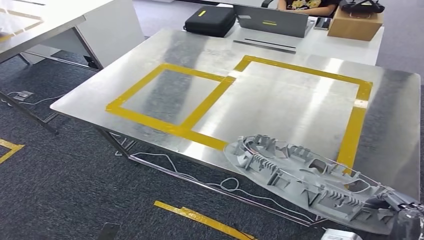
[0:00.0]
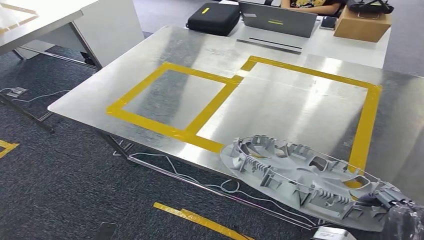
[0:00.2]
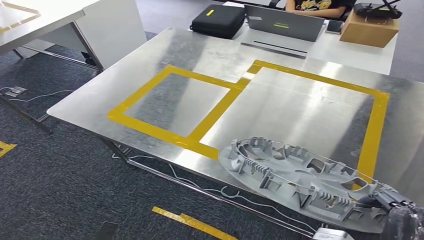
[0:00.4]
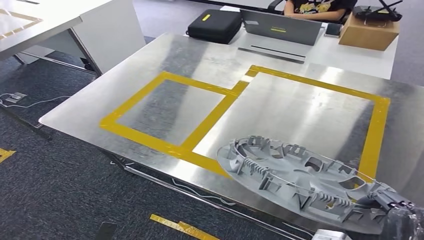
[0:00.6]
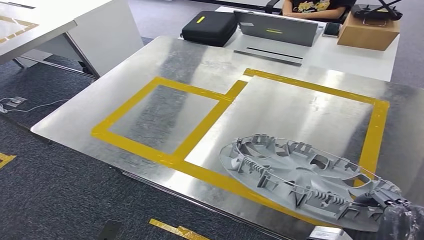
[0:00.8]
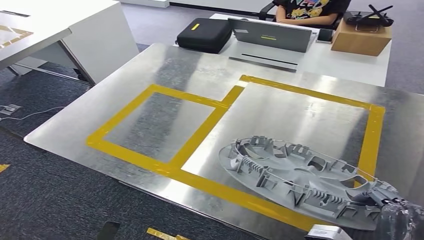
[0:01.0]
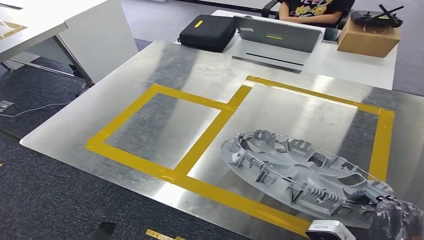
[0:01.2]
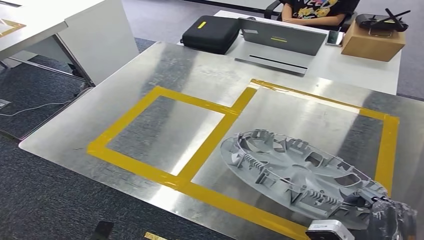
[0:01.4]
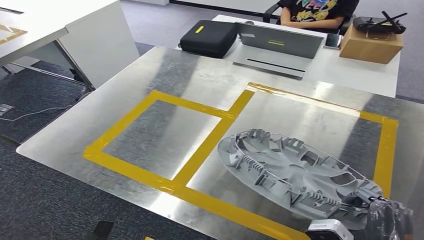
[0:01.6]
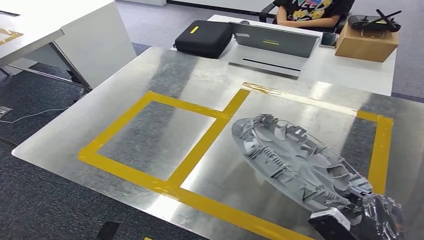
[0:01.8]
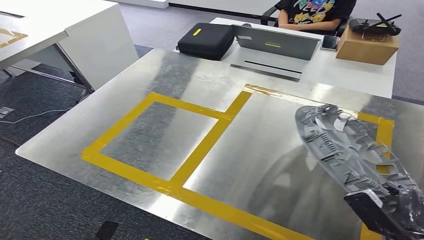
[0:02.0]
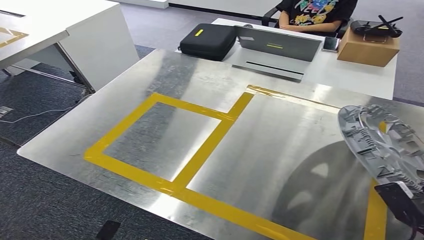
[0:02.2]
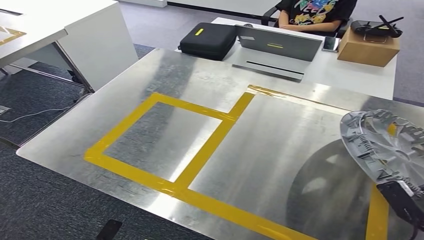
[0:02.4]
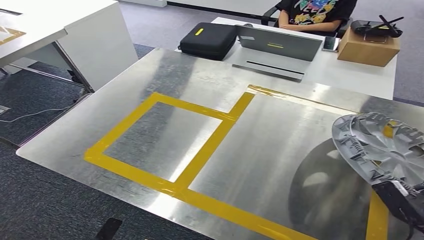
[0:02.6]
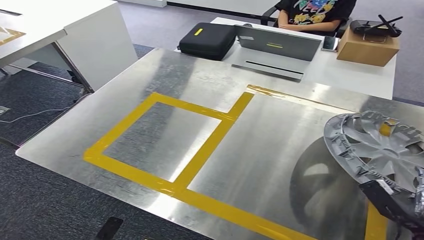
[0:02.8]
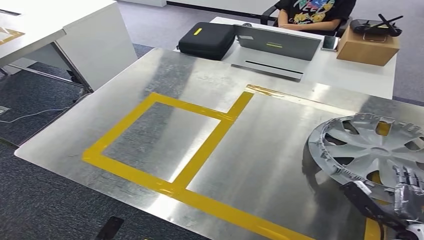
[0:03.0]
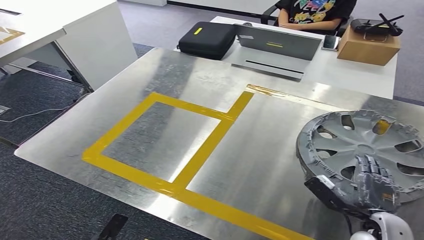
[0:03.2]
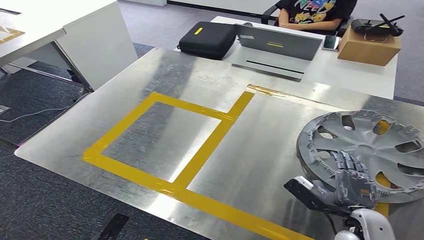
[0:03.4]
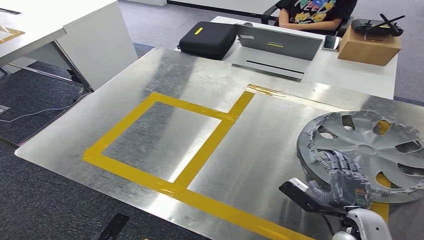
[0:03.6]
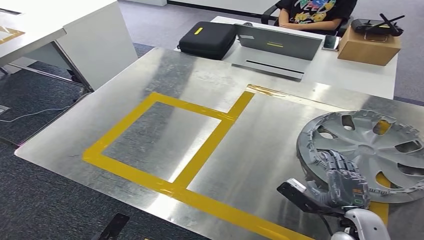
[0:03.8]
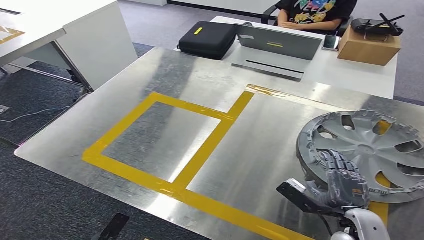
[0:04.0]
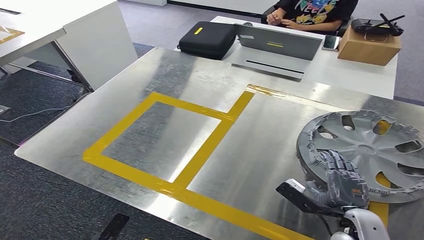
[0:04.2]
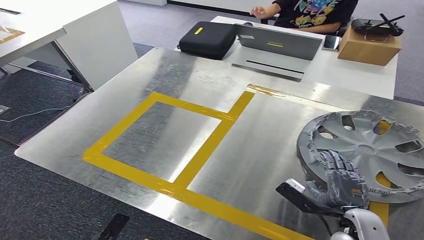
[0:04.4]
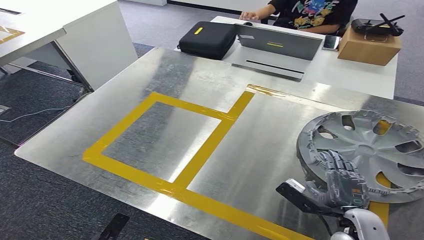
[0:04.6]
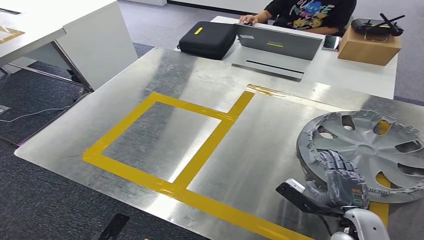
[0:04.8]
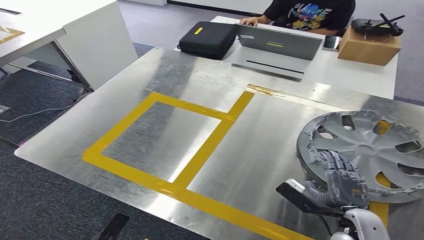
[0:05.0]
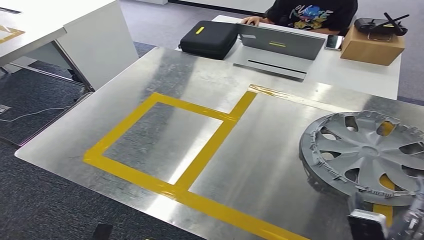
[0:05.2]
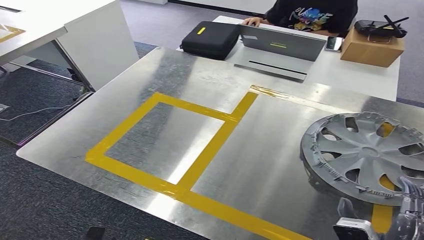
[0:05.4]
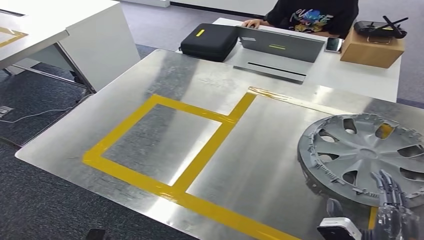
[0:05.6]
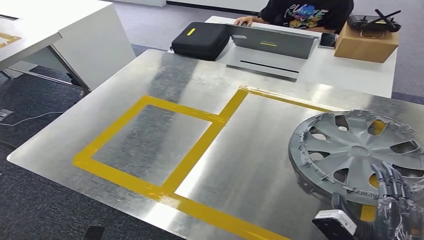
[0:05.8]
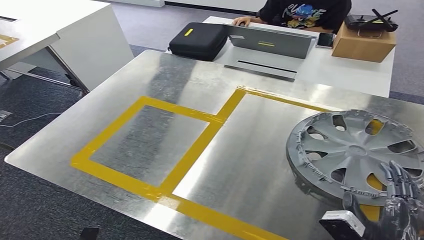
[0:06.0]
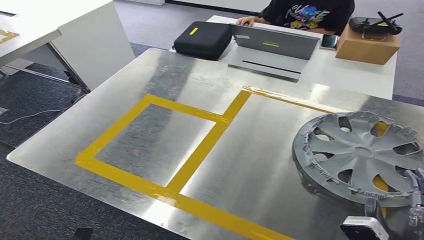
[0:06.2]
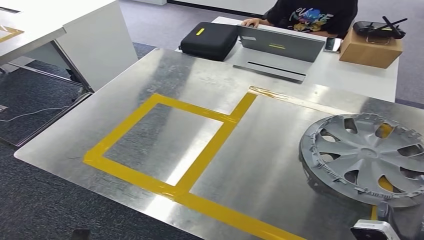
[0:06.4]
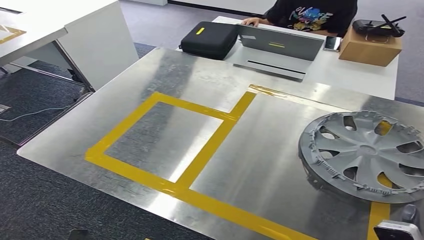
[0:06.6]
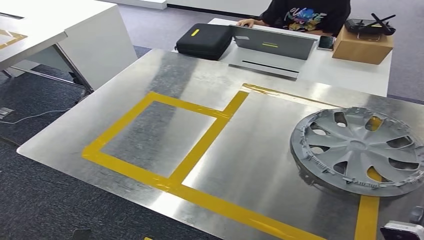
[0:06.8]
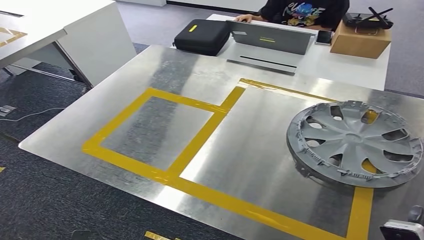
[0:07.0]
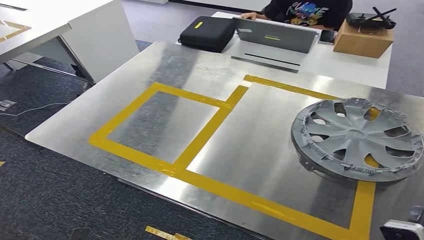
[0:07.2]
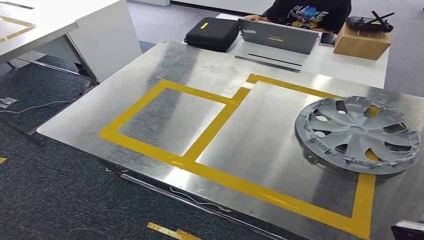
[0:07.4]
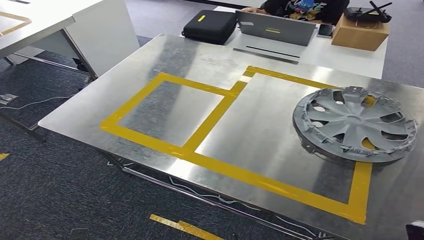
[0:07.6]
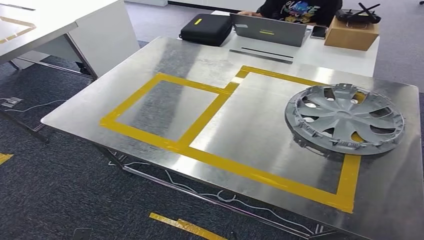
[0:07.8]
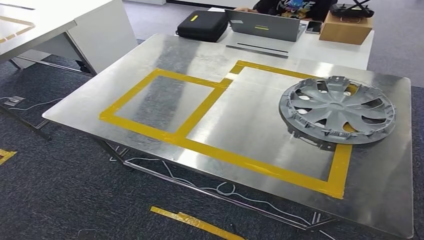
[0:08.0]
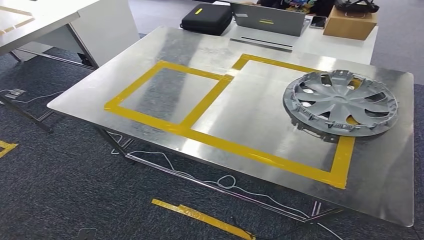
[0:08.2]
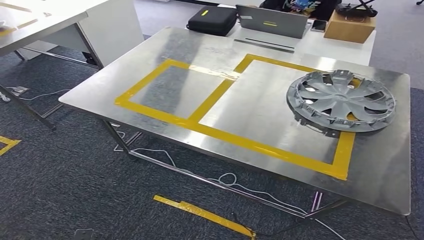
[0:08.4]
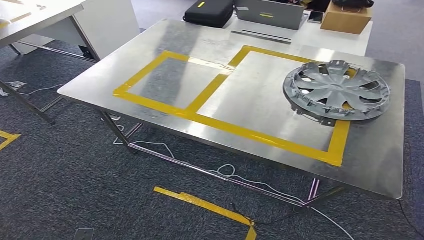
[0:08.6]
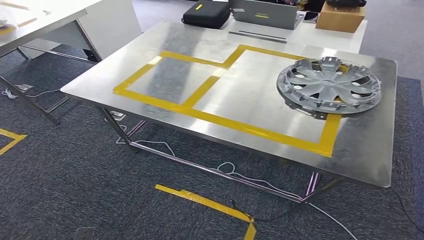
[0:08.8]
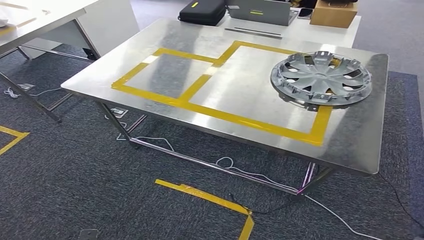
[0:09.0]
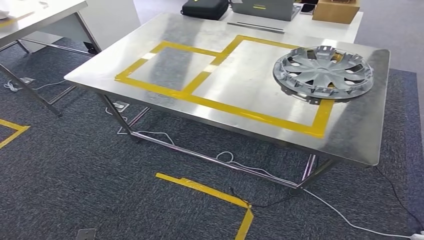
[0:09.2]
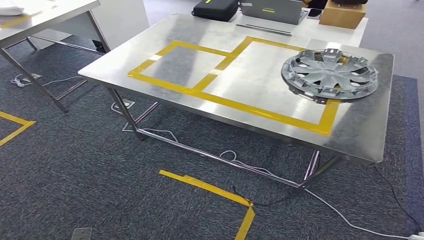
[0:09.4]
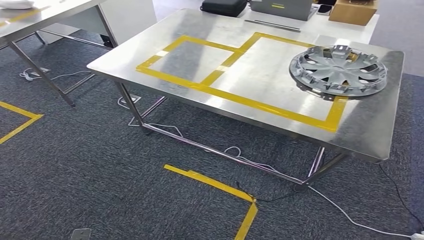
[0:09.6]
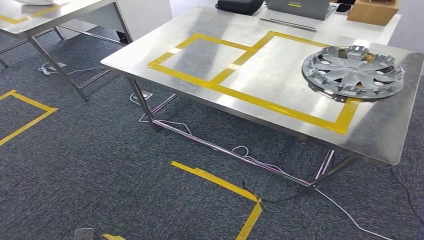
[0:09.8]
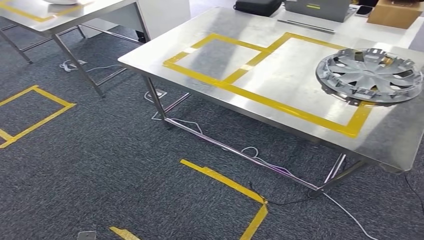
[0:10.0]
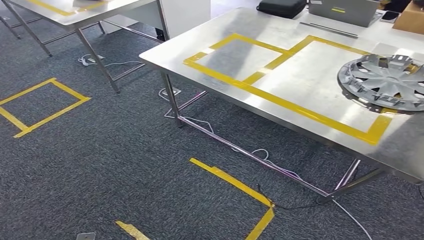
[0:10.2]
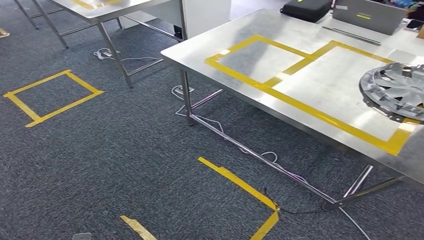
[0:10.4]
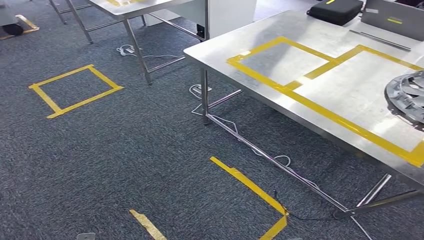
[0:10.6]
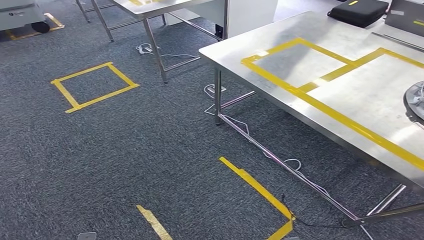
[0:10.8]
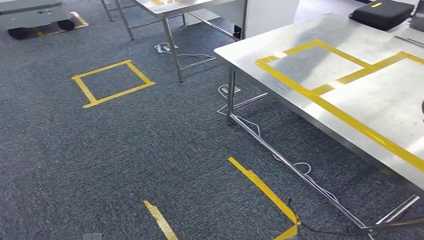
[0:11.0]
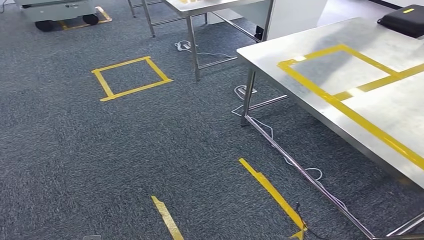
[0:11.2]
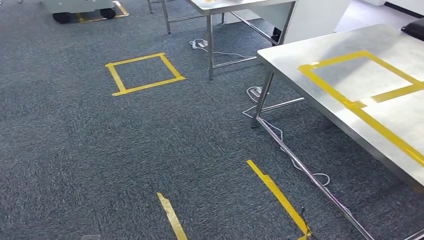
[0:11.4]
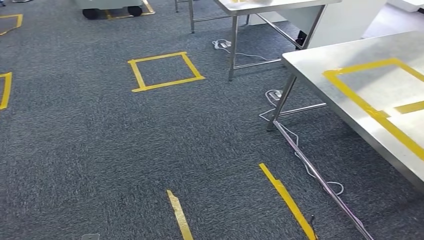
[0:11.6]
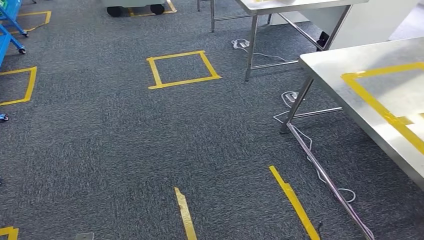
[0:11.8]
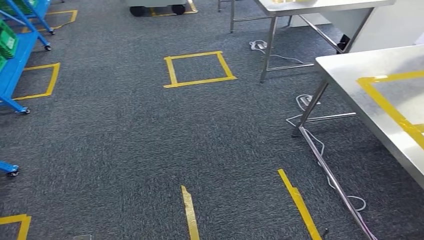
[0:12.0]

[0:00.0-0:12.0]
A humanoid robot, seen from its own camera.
Step, 0:00.0 to 0:05.6: Insert the small parts into the corresponding holes on the workbench.
0:03.0 to 0:04.4: The right hand heads to the left, covering approximately 10 cm.

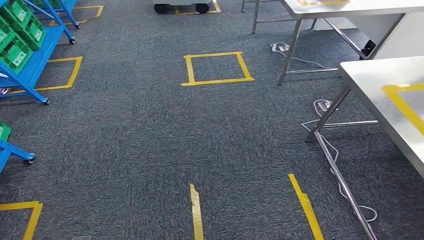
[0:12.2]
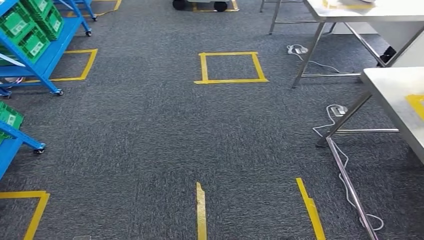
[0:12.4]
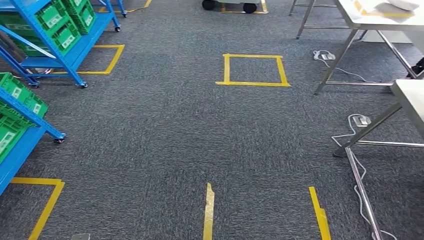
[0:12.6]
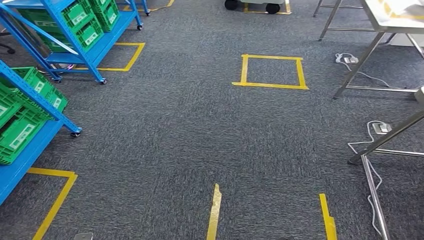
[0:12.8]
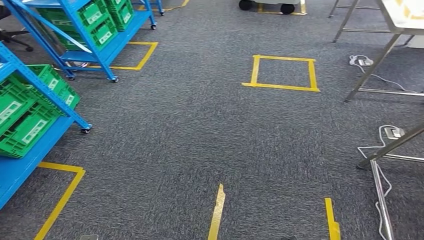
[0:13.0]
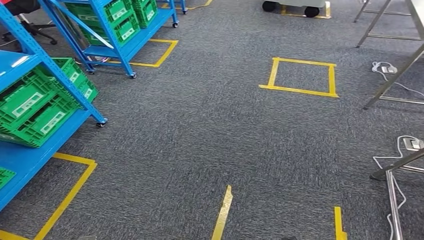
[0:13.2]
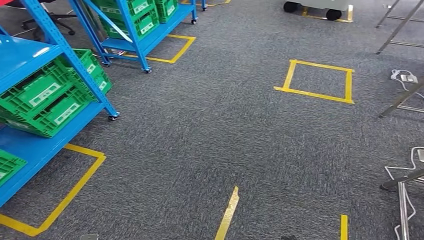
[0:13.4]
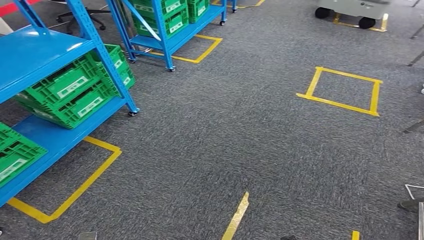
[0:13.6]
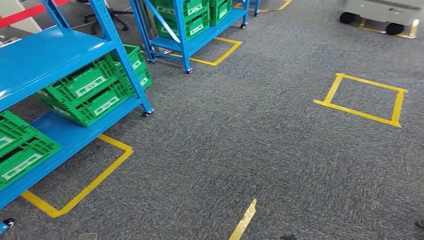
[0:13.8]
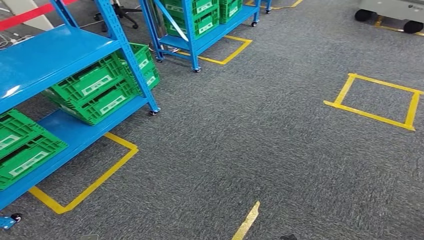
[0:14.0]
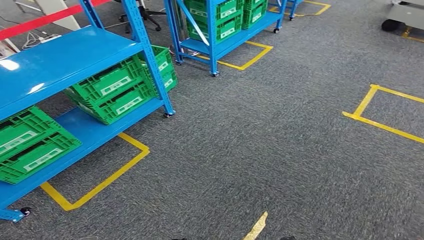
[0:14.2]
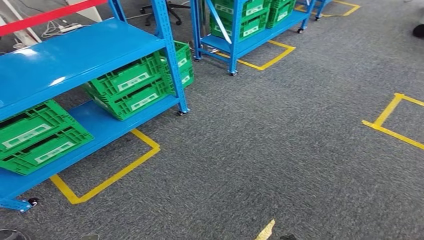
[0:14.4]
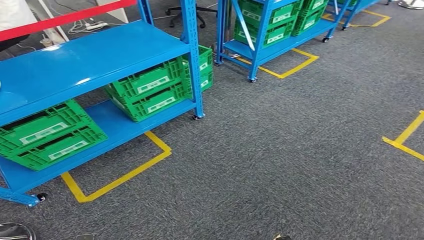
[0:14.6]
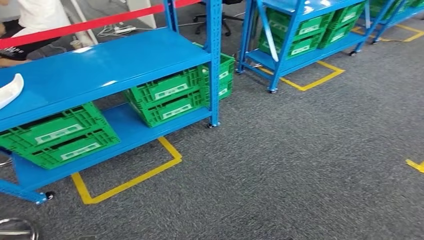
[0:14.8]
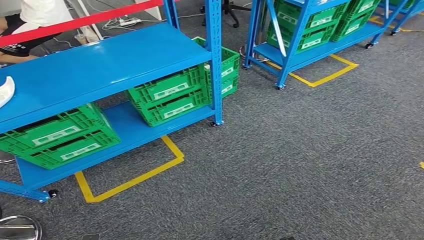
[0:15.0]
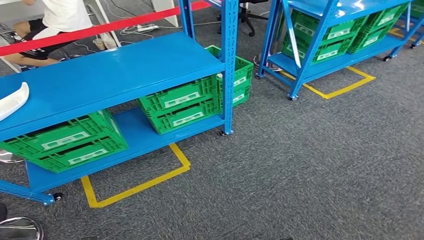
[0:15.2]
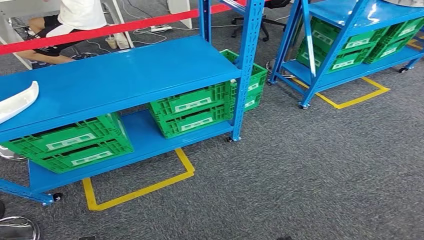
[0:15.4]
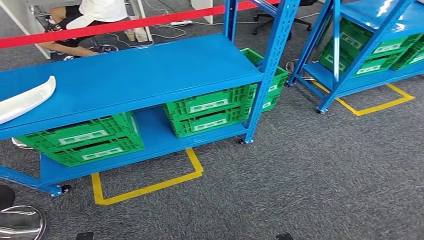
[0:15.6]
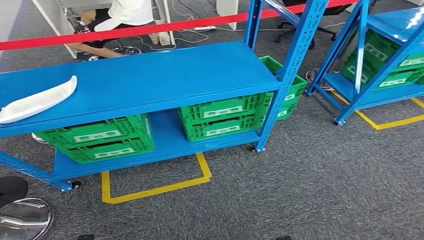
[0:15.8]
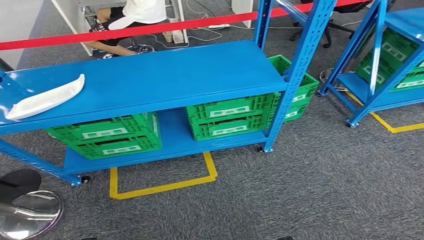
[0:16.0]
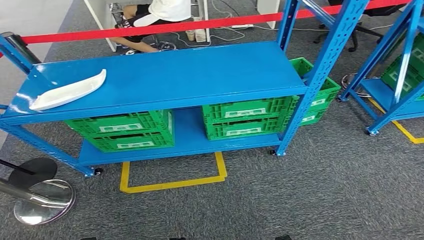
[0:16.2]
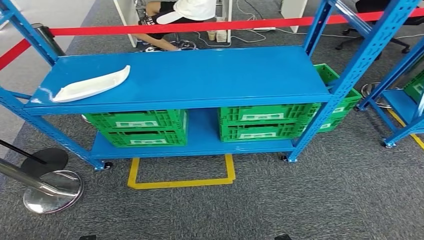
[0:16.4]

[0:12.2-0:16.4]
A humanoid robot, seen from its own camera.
Step, 0:12.2 to 0:16.4: Move to the initial position of the workbench.

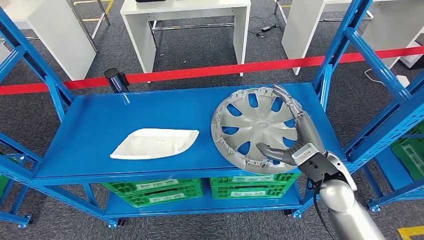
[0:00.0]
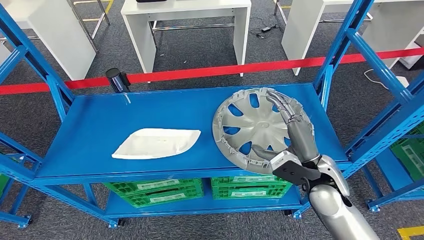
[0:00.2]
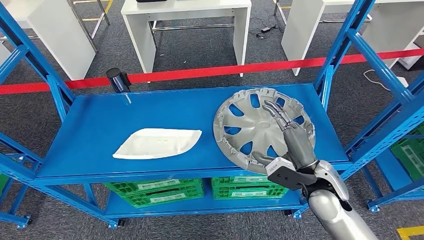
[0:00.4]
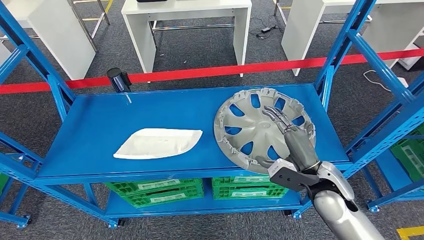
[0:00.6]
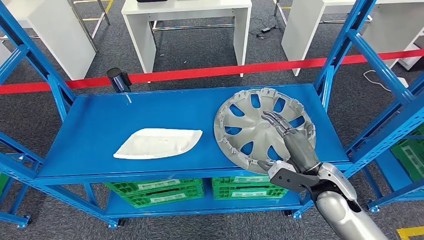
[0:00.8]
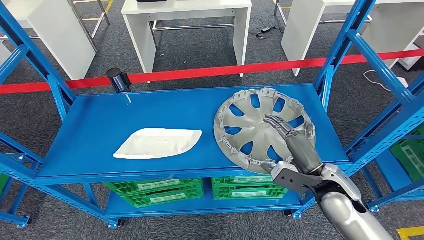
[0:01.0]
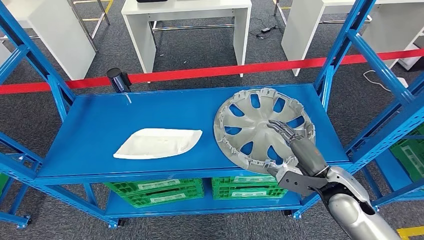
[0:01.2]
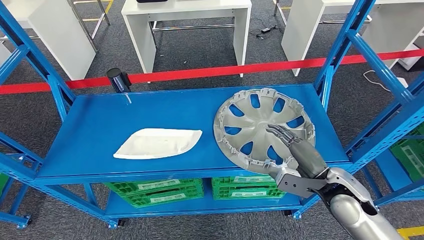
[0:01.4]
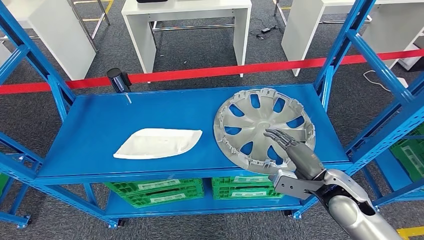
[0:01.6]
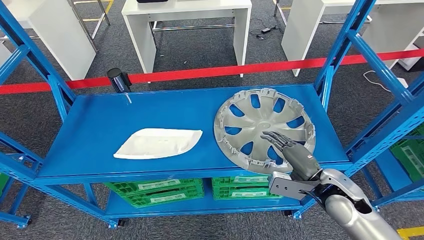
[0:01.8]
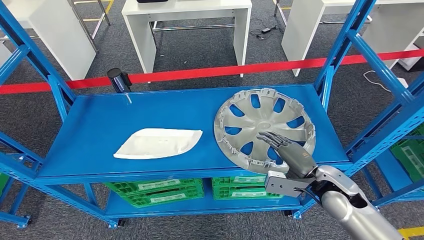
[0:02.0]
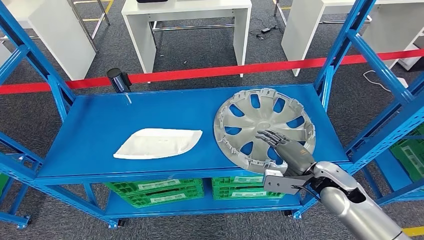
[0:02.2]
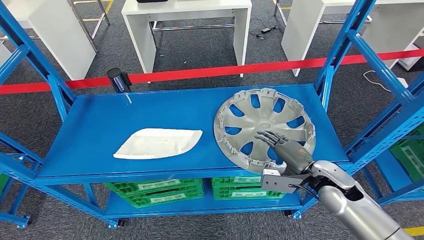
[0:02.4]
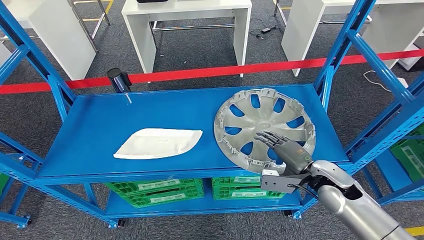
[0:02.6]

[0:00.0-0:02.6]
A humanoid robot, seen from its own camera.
0:00.0 to 0:01.2: The right hand changes place by some 5 cm.
